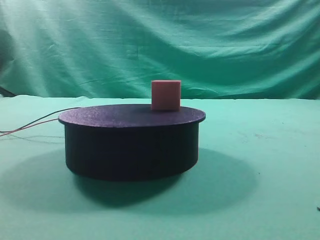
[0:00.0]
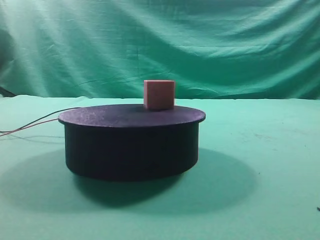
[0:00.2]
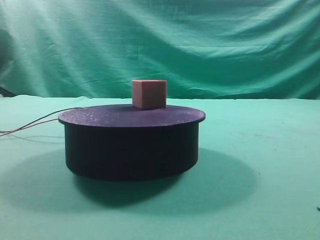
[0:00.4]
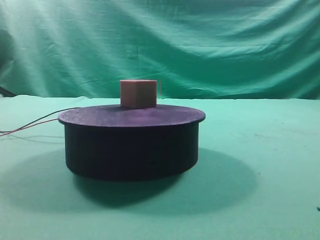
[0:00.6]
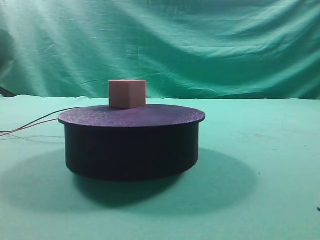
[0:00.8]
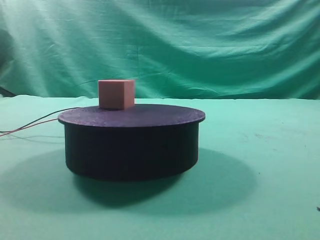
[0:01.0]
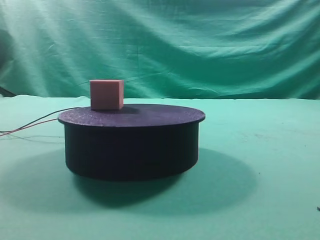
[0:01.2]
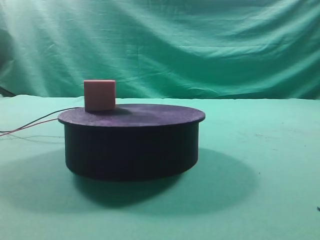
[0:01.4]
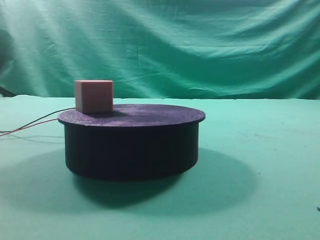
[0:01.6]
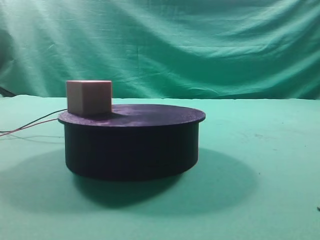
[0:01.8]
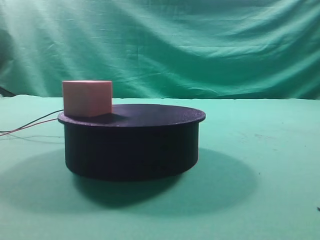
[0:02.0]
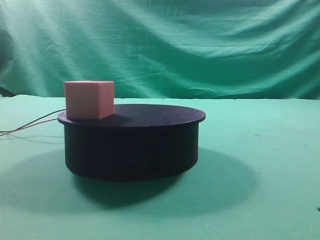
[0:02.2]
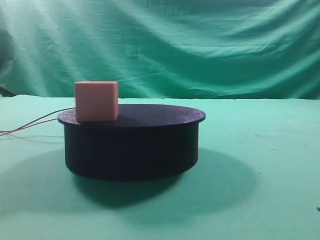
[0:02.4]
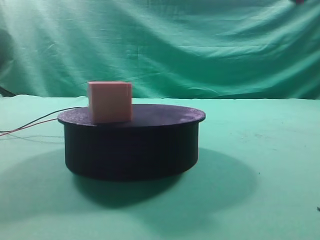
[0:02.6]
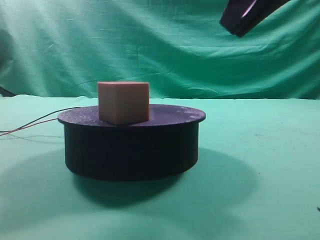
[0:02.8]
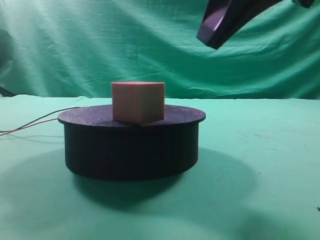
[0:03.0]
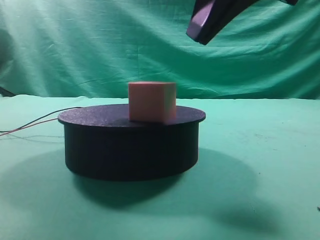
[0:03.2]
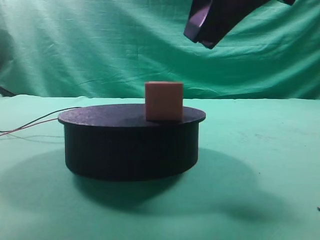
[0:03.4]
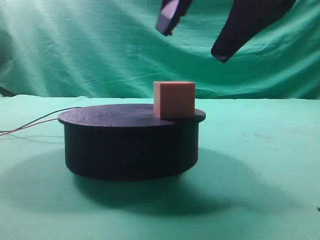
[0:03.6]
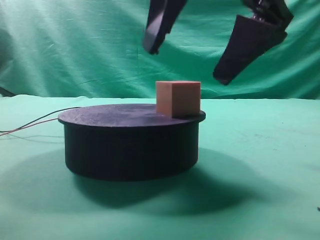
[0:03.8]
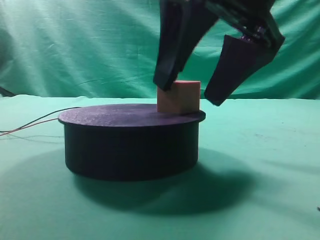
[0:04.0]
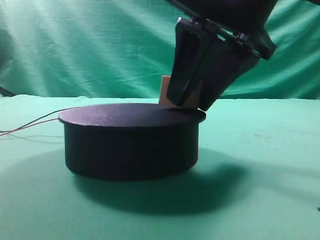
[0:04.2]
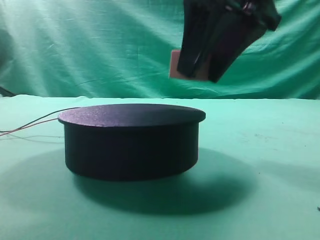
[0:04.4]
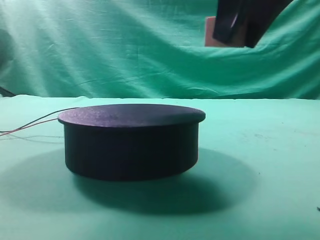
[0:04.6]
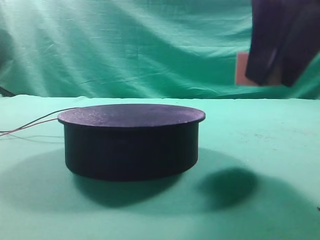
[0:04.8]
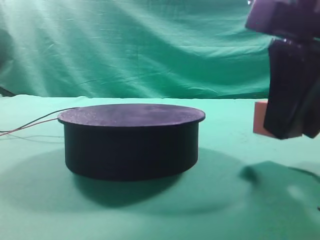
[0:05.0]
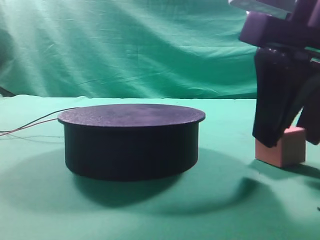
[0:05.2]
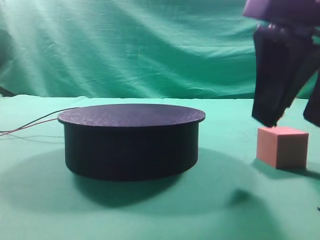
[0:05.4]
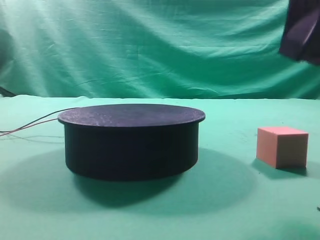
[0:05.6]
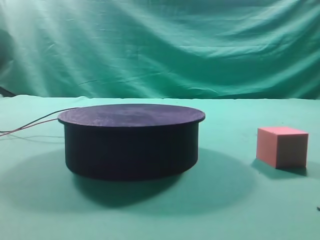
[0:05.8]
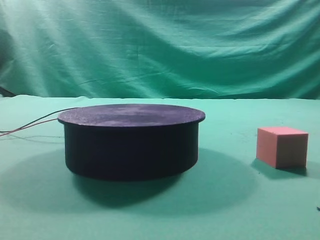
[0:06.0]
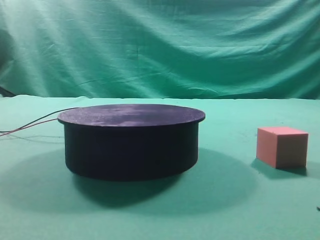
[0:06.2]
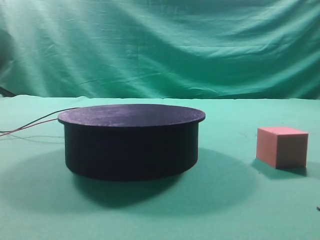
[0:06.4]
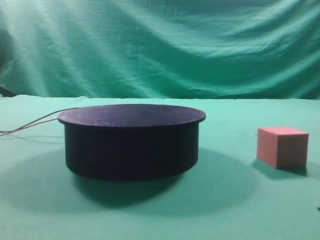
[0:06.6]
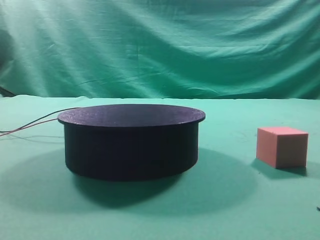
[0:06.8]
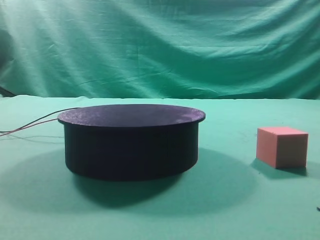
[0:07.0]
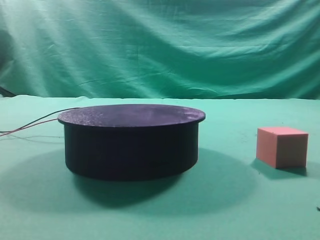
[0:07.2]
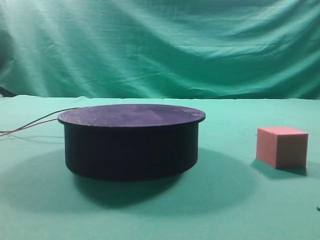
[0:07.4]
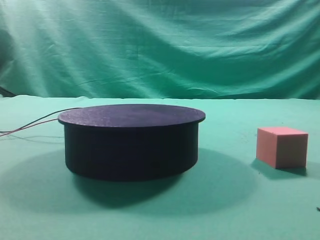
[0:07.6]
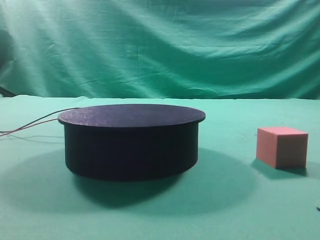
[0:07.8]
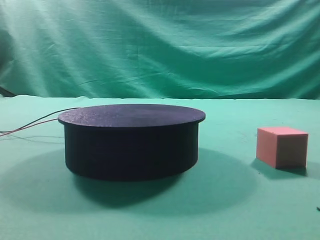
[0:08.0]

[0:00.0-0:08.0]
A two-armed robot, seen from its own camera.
Task of the whole recording: grasp the rotating cube-shaped block on the turntable and place it on the table.
Step, 0:00.0 to 0:04.2: Grasp the rotating cube-shaped block on the turntable.
Step, 0:04.4 to 0:05.4: Place the cube on the desk.

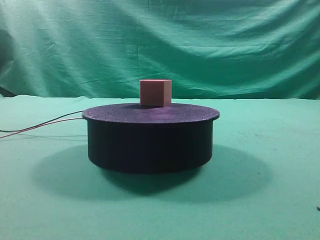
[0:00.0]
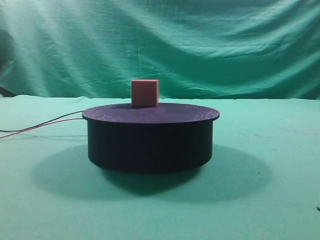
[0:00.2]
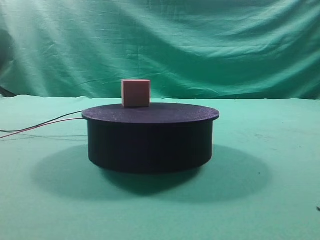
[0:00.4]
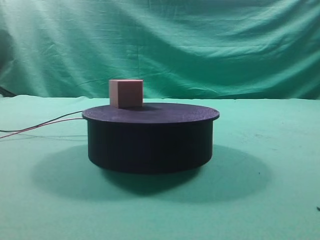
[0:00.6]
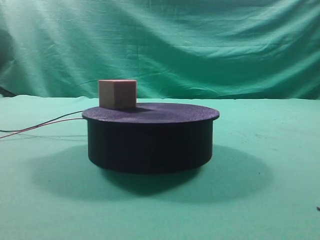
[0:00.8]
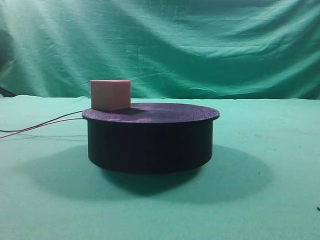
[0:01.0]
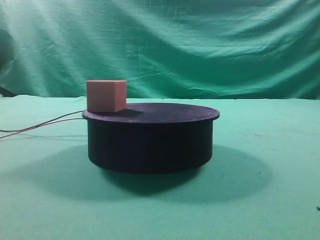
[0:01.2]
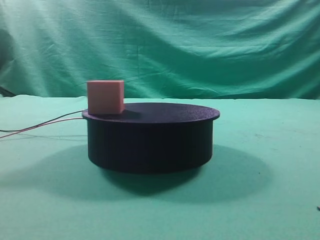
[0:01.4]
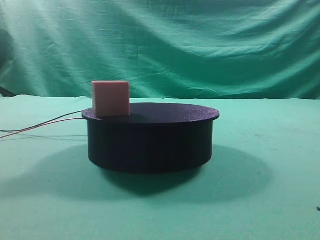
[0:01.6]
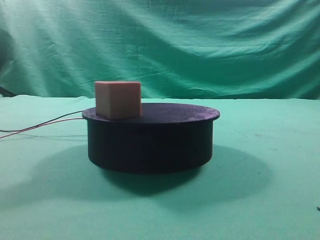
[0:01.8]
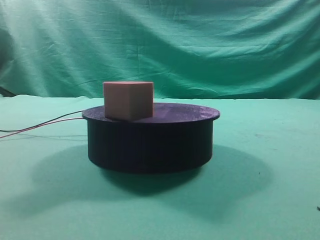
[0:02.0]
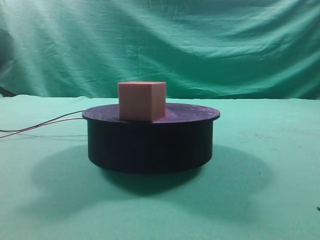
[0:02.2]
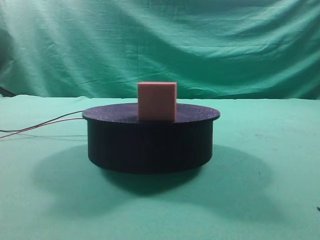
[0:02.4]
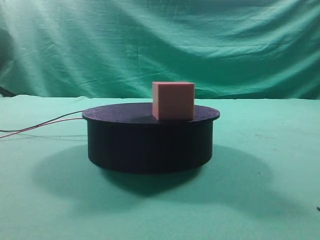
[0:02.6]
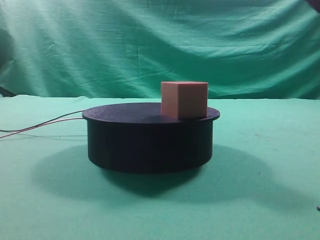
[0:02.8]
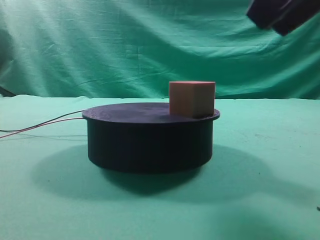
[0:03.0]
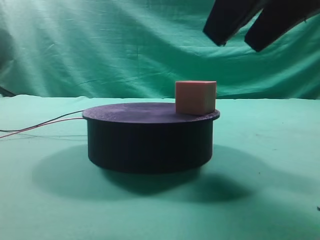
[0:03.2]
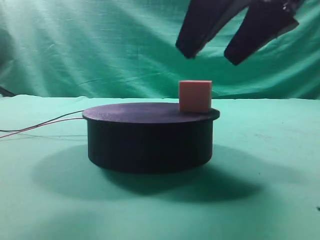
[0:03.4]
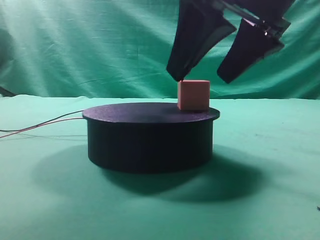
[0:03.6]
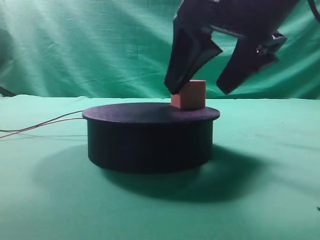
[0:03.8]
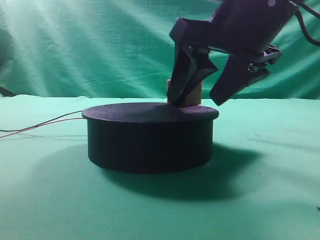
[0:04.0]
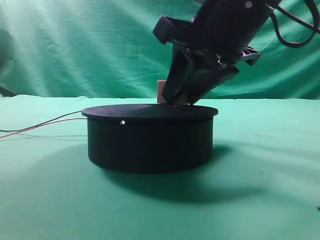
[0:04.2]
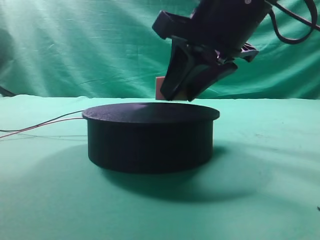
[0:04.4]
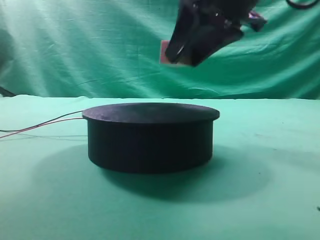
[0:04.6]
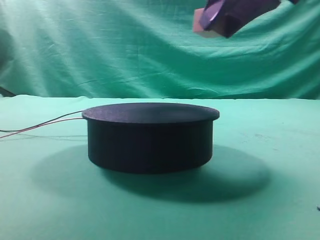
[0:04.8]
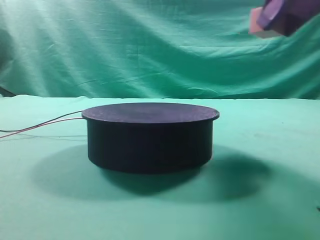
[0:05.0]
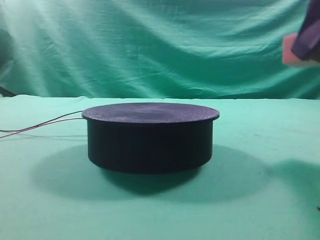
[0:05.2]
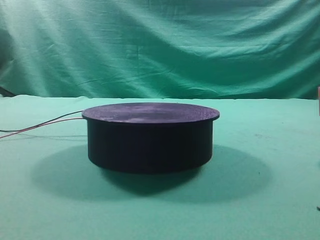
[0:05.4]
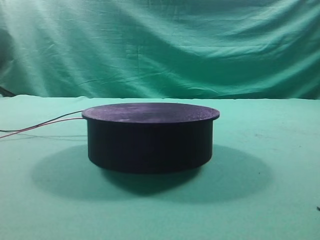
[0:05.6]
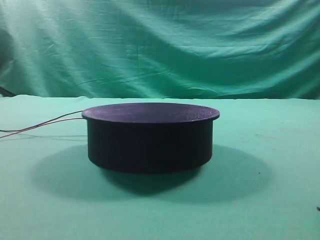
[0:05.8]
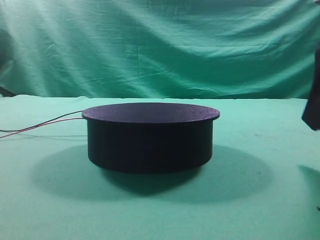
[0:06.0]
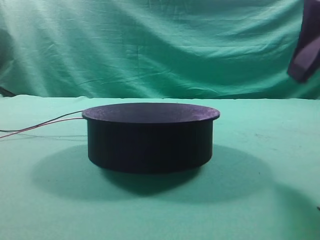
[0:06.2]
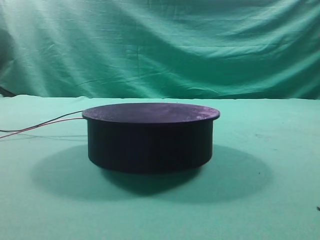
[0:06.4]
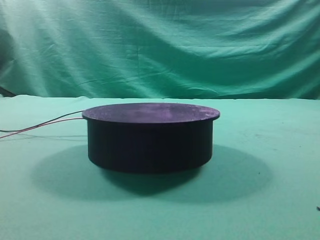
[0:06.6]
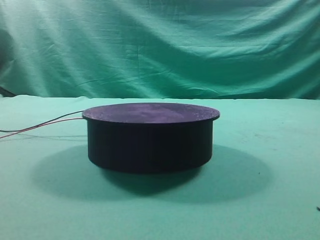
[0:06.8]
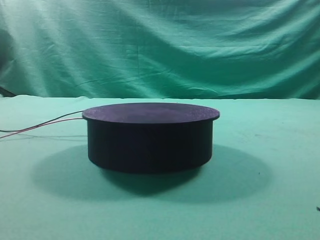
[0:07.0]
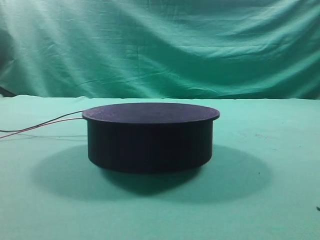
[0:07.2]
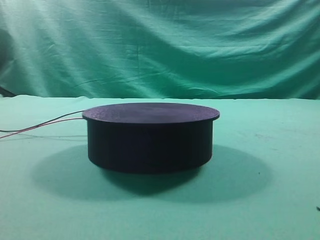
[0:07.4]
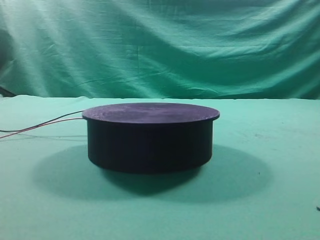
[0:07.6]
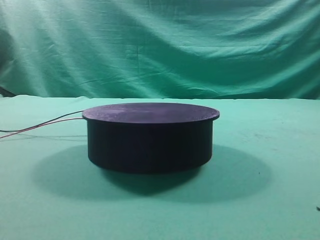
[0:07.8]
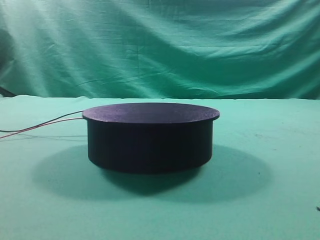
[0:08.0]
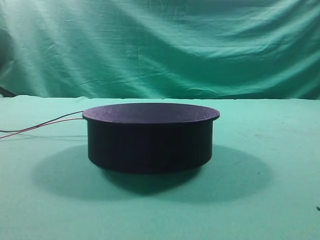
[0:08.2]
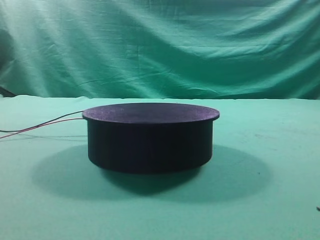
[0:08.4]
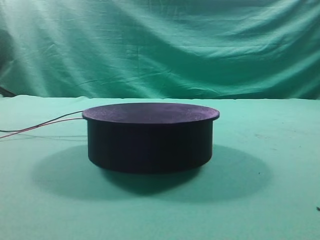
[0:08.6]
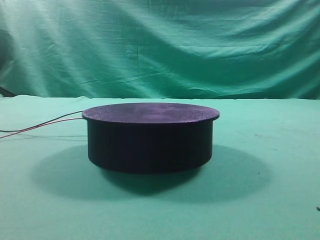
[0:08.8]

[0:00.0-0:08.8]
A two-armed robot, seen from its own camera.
Task of the whole recording: grasp the rotating cube-shaped block on the turntable and place it on the table.
Step, 0:00.0 to 0:04.4: Grasp the rotating cube-shaped block on the turntable.
Step, 0:04.6 to 0:06.0: Place the cube on the desk.
